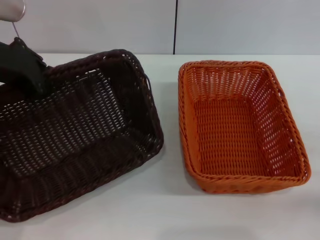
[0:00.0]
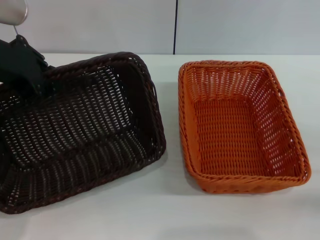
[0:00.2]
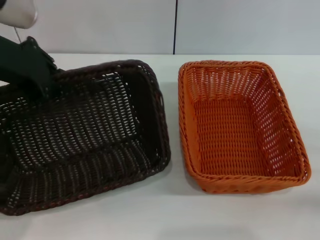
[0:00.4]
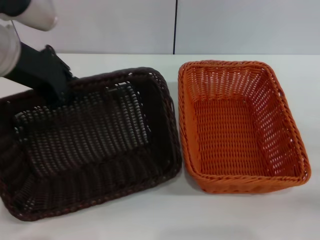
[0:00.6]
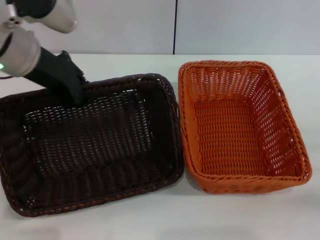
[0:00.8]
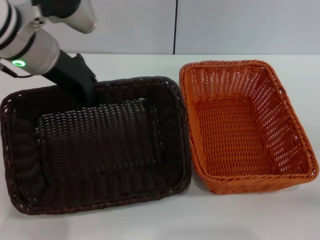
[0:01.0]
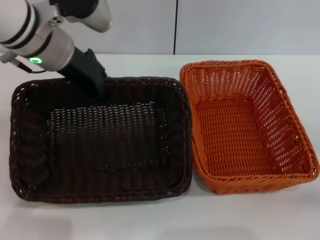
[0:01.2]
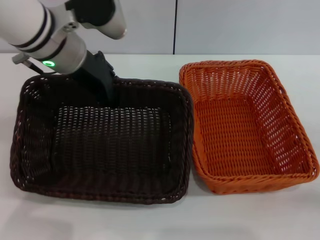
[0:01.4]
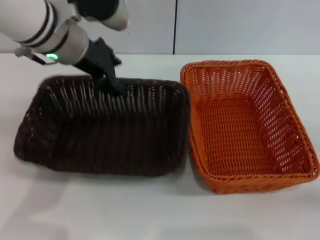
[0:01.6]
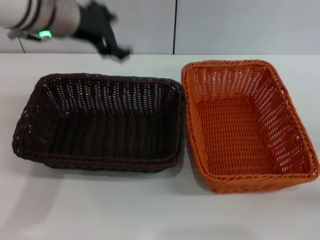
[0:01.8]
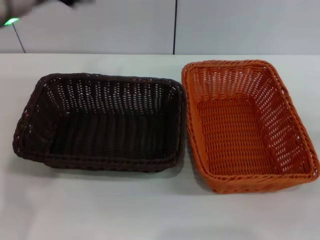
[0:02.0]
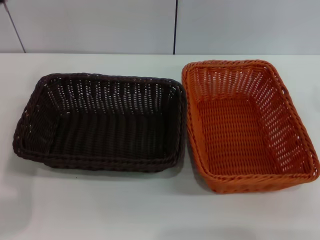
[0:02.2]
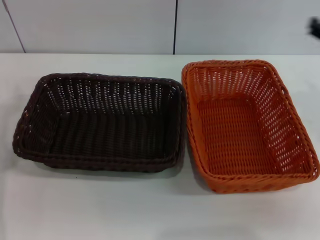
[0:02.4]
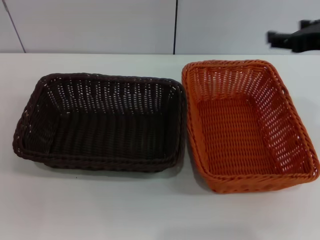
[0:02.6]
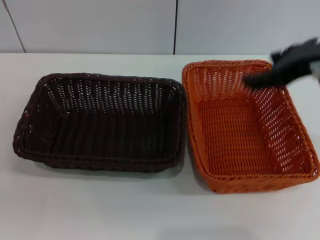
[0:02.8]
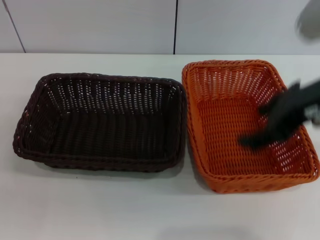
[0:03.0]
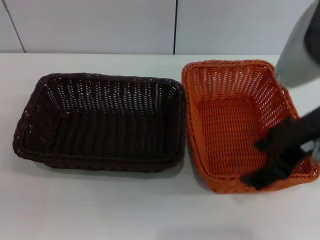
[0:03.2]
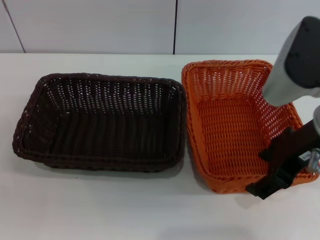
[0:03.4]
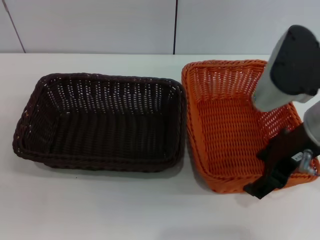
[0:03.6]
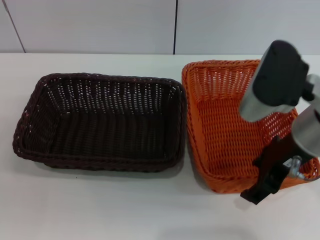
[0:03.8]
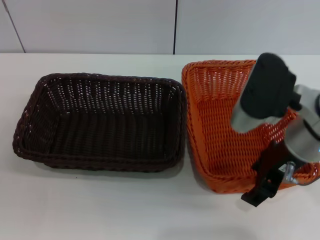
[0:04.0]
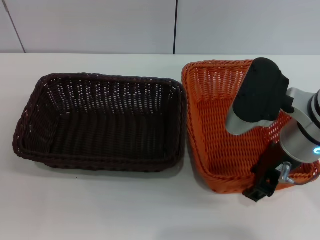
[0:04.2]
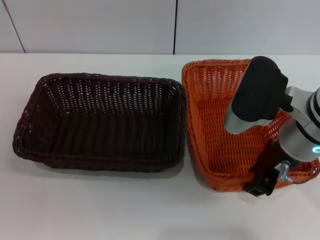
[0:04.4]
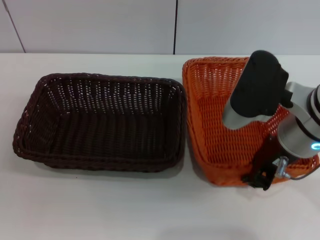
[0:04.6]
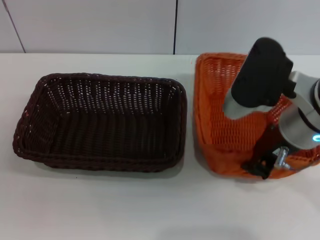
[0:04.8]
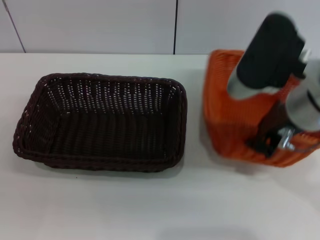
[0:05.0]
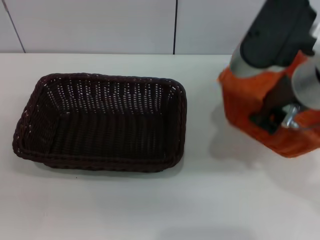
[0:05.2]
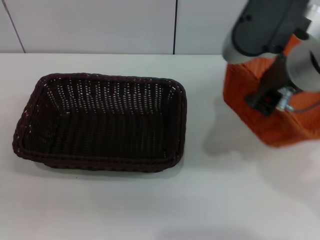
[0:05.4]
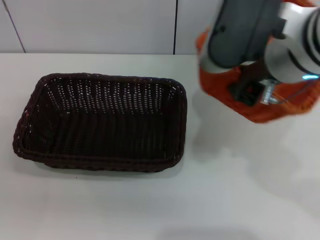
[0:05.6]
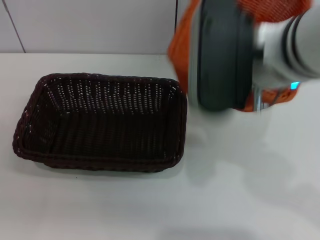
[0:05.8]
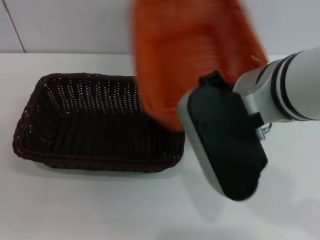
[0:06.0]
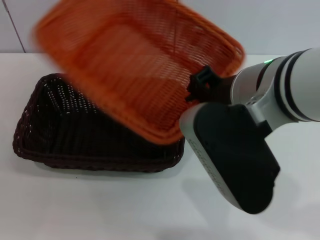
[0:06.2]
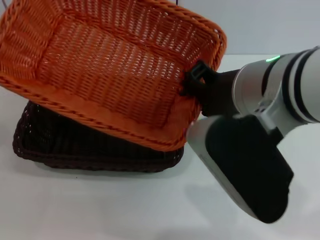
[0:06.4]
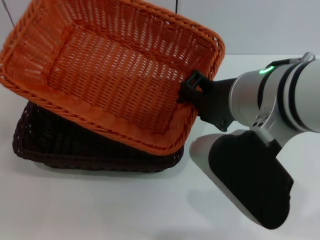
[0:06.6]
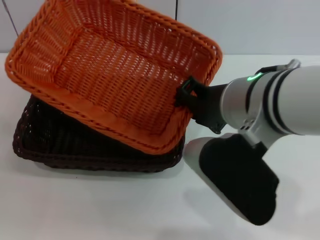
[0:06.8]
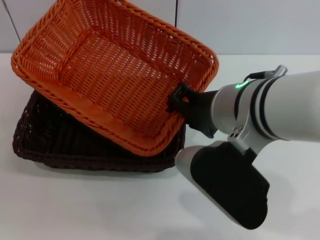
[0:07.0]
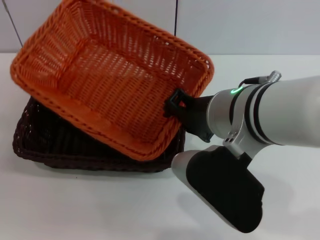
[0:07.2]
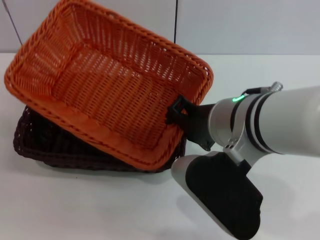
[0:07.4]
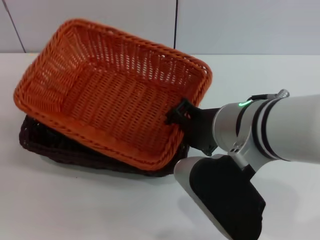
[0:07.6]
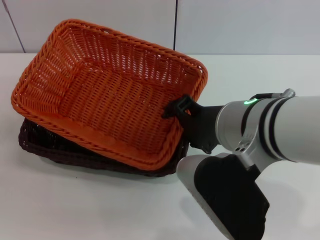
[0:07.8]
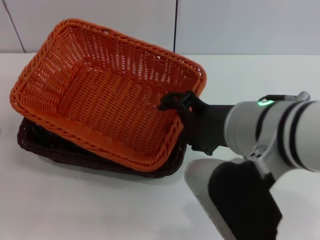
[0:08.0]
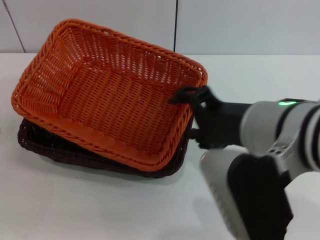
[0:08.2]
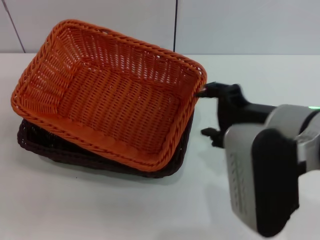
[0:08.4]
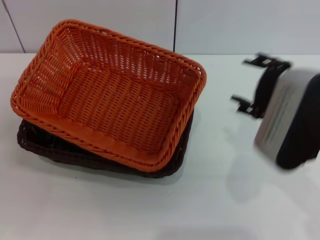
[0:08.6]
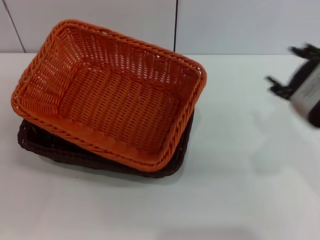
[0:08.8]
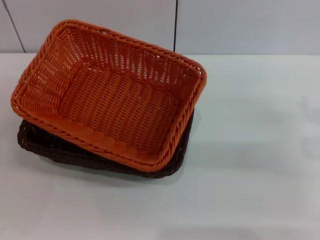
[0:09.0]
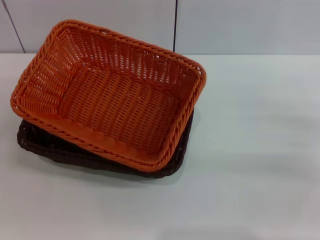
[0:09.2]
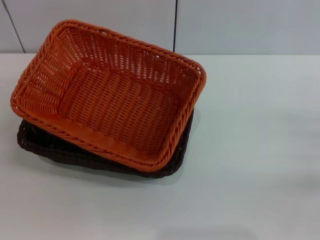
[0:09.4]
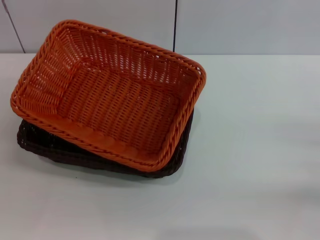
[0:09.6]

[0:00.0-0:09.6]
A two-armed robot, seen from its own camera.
Step, 0:00.0 to 0:01.6: Place the dark basket in the center of view with the left gripper.
Step, 0:01.8 to 0:04.8: Pick up the light basket with the right gripper.
Step, 0:05.0 to 0:08.0: Place the light basket on the dark basket with the right gripper.
0:00.0 to 0:01.6: The left gripper travels to the right and forward by approximately 10 cm, and opens up.
0:01.6 to 0:03.2: The left gripper is displaced downward, to the left and backward by approximately 30 cm, and opens. The right gripper is displaced upward and to the left by roughly 25 cm.
0:03.2 to 0:04.8: The right gripper goes some 5 cm downward, and closes up.
0:04.8 to 0:06.4: The right gripper shifts roughly 10 cm to the left and upward.
0:06.4 to 0:08.0: The right gripper opens up.
0:08.0 to 0:09.6: The right gripper is displaced to the right and downward by approximately 30 cm, and opens up.

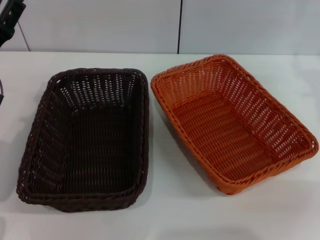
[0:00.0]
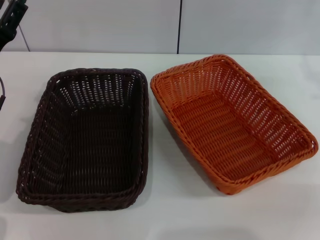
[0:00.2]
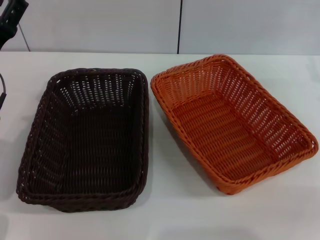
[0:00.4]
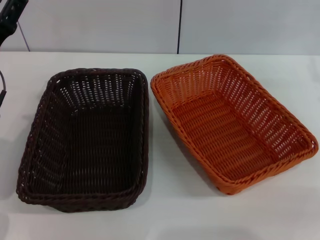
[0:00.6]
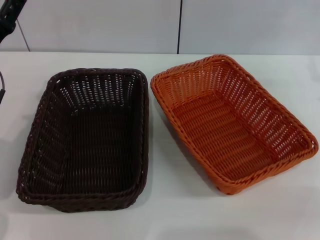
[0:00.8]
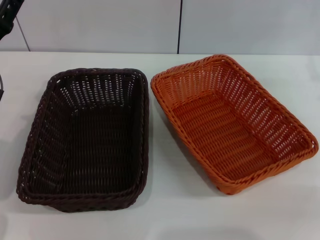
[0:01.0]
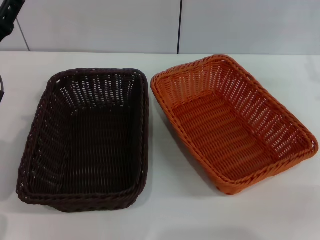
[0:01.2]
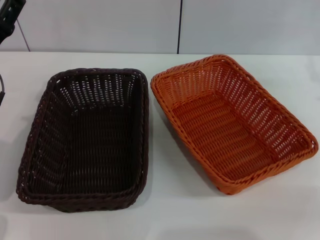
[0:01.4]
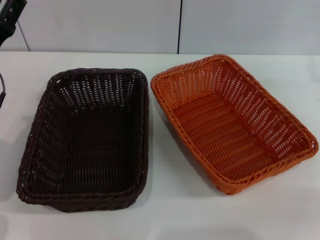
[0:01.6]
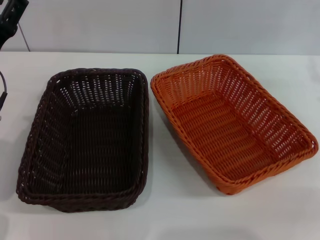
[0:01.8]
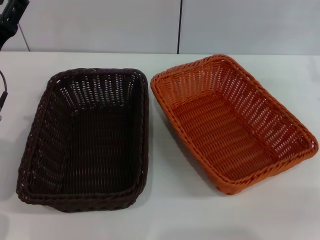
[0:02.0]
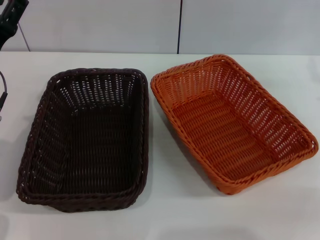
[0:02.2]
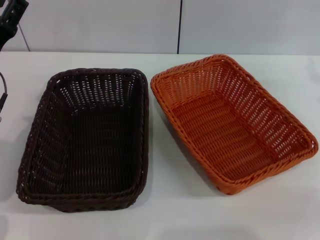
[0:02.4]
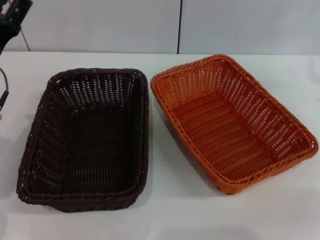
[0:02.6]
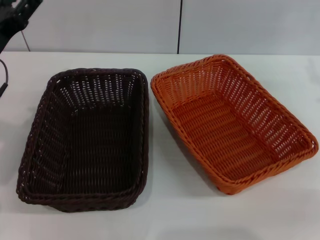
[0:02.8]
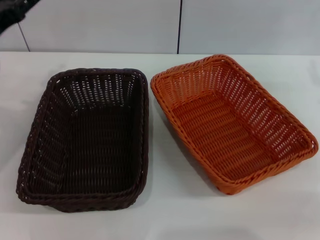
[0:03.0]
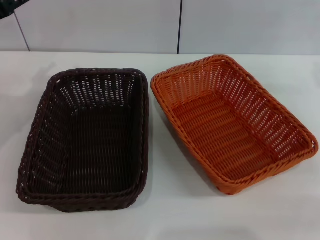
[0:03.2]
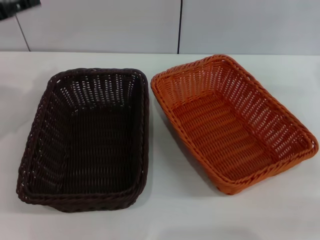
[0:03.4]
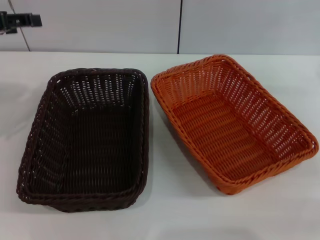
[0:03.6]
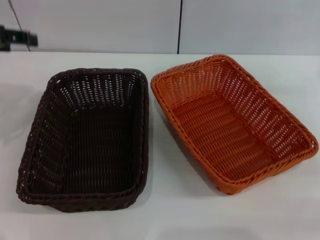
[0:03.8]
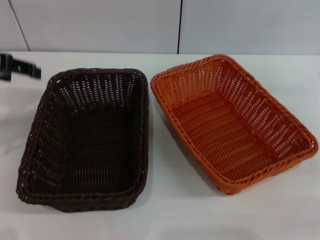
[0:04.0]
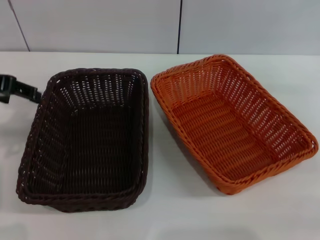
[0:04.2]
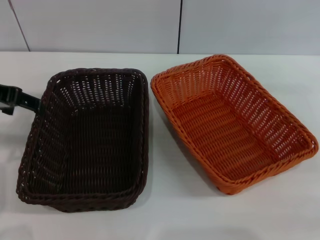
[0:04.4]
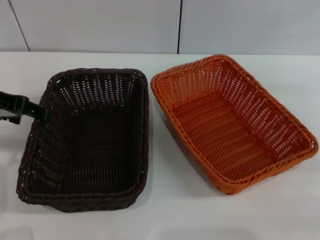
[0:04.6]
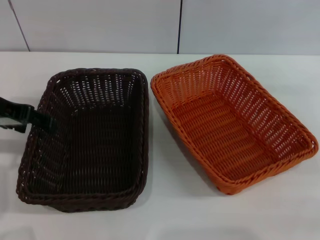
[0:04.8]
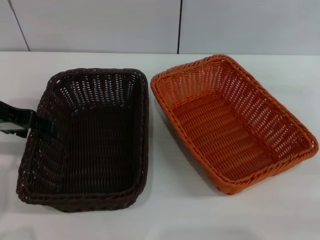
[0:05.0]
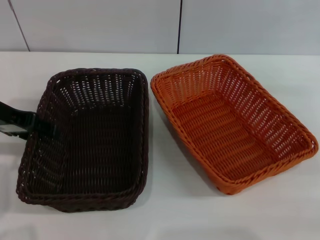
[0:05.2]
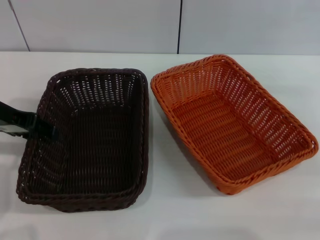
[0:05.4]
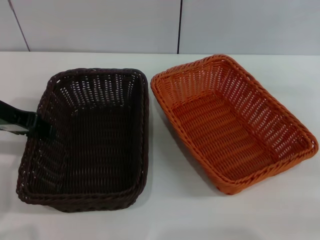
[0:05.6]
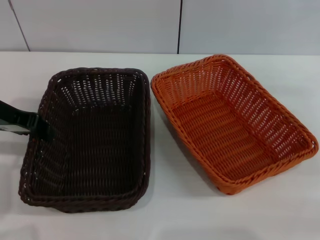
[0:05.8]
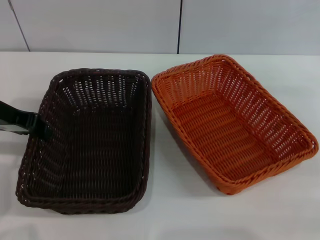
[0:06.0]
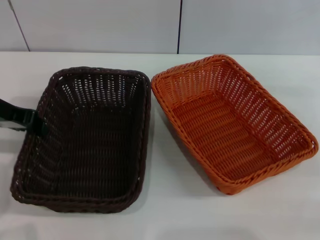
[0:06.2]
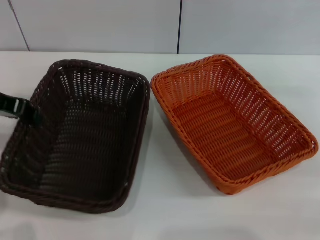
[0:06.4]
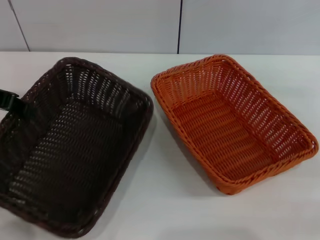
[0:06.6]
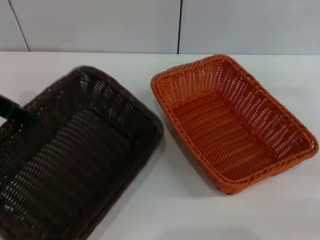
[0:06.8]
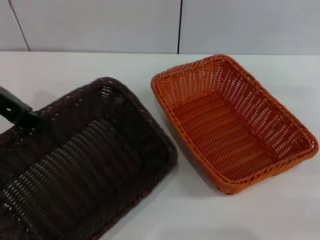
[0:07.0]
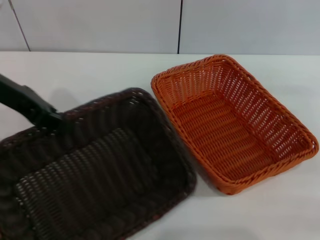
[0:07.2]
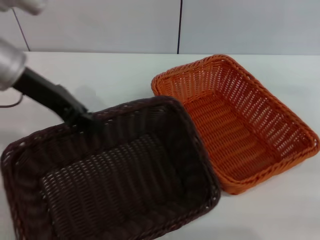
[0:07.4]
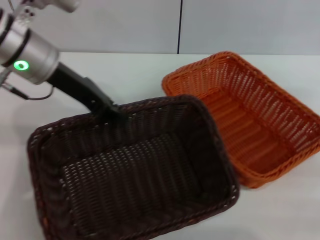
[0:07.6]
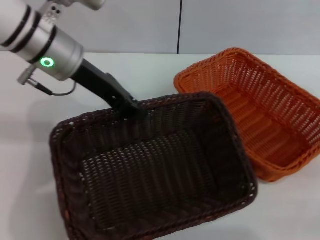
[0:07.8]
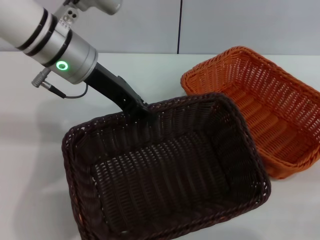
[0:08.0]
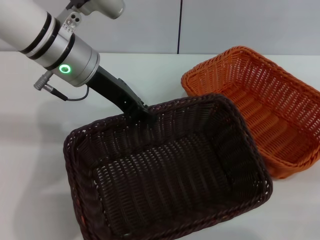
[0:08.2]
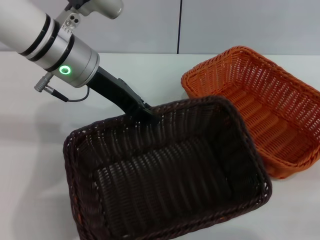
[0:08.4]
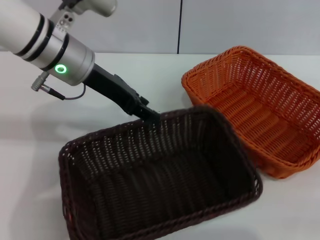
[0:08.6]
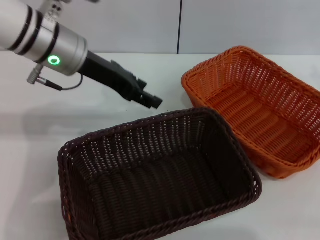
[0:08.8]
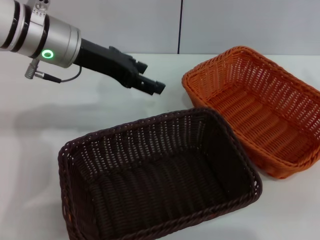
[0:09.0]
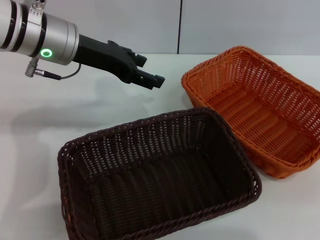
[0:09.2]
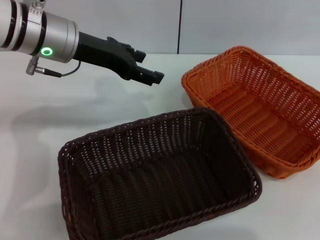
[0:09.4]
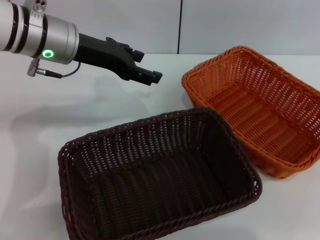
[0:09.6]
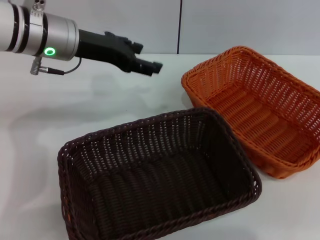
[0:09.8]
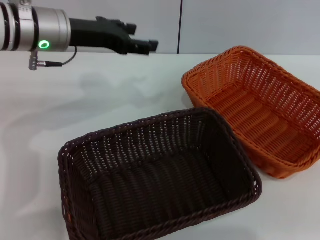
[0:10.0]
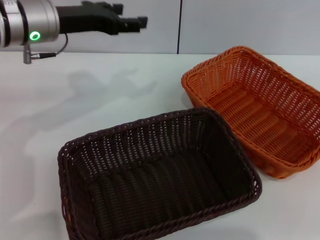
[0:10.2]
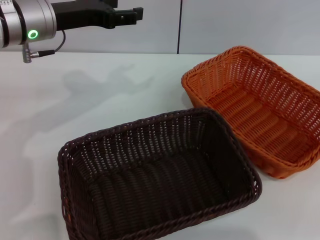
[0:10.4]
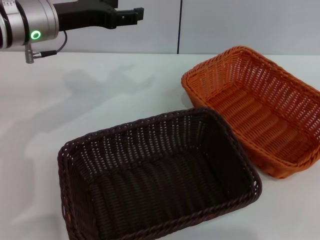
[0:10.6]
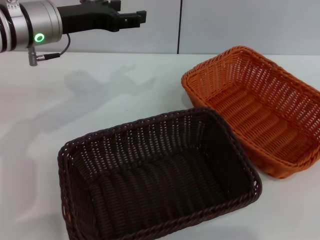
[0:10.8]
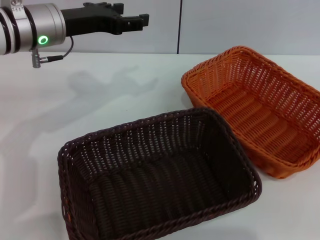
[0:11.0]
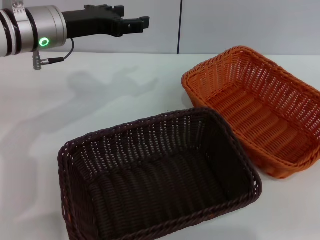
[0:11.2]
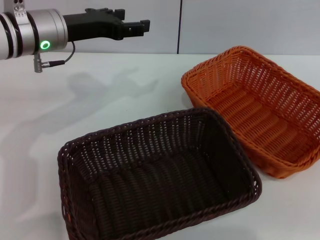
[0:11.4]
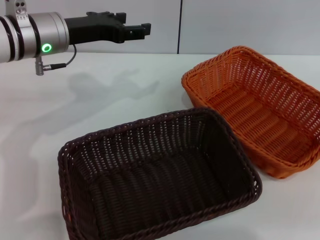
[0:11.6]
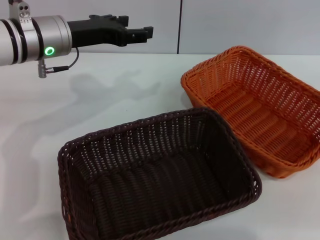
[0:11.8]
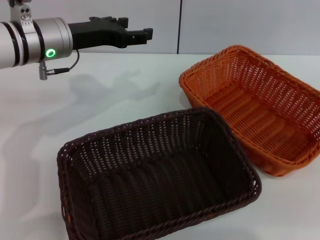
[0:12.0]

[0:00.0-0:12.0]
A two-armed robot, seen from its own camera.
Step, 0:00.0 to 0:06.6: Pick up the dark basket with the left gripper.
Step, 0:06.8 to 0:08.6: Place the dark basket in the center of view with the left gripper.
0:01.6 to 0:03.0: The left gripper shifts by roughly 5 cm.
0:03.0 to 0:04.4: The left gripper heads upward, covering about 5 cm.
0:04.4 to 0:06.0: The left gripper closes its fingers.
0:06.0 to 0:07.6: The left gripper moves to the right, about 10 cm.
0:07.6 to 0:09.0: The right gripper goes roughly 5 cm upward, while the left gripper opens.
0:09.0 to 0:10.4: The right gripper changes place by some 10 cm.
0:10.4 to 0:12.0: The right gripper ends up some 5 cm from where it was.
